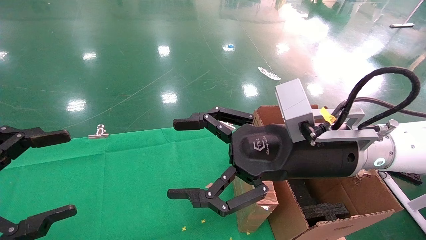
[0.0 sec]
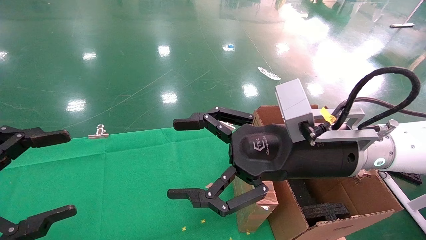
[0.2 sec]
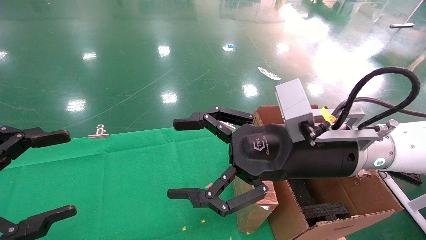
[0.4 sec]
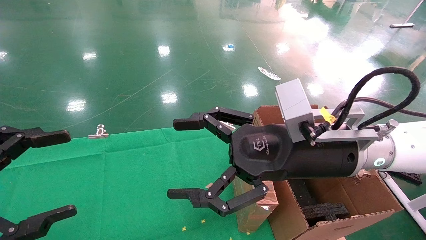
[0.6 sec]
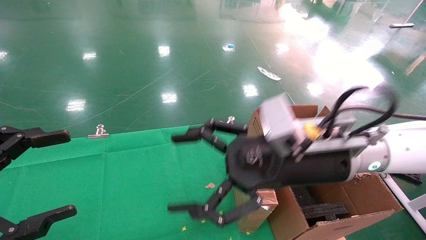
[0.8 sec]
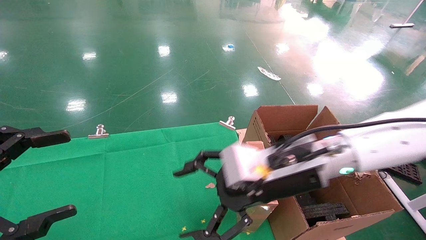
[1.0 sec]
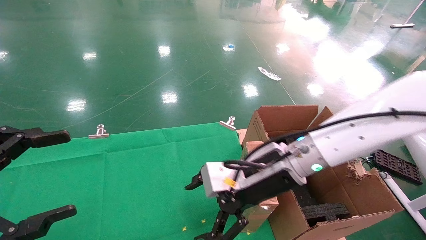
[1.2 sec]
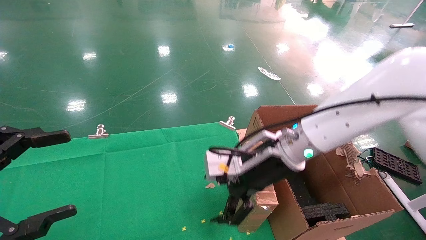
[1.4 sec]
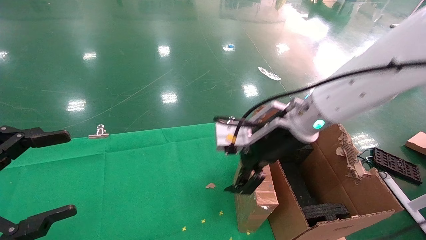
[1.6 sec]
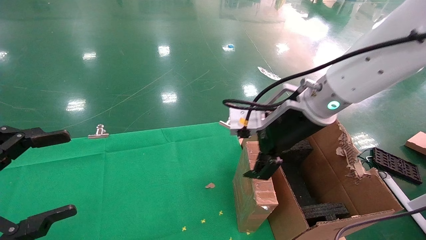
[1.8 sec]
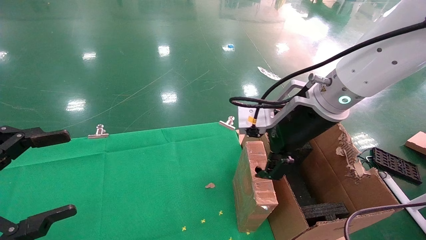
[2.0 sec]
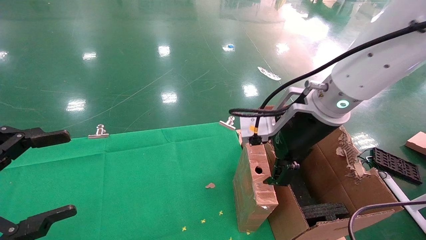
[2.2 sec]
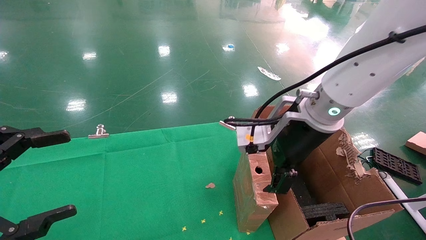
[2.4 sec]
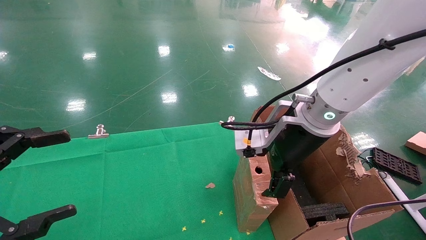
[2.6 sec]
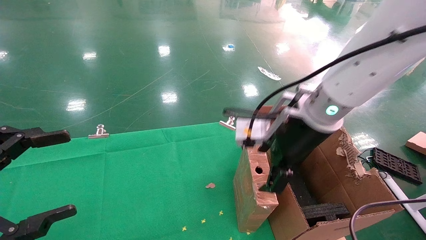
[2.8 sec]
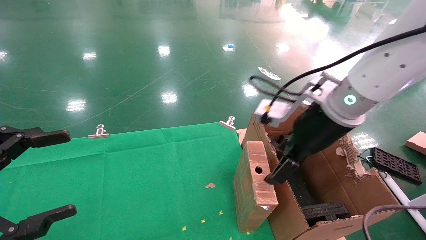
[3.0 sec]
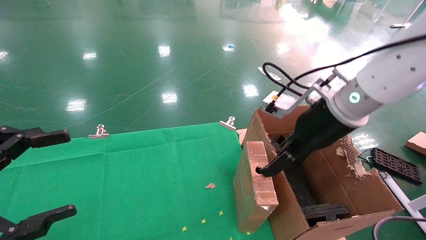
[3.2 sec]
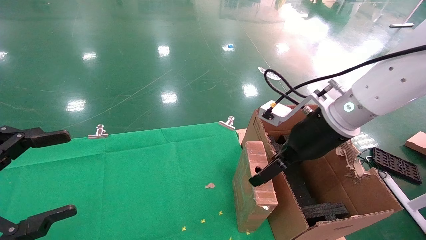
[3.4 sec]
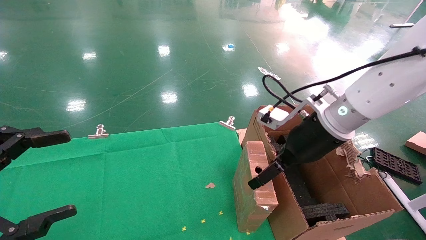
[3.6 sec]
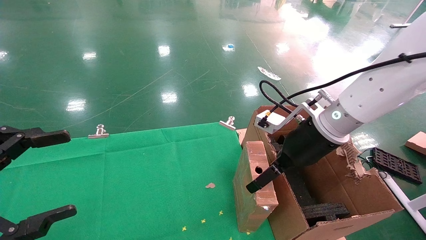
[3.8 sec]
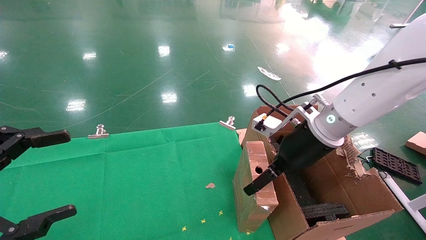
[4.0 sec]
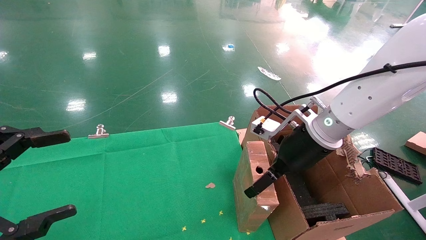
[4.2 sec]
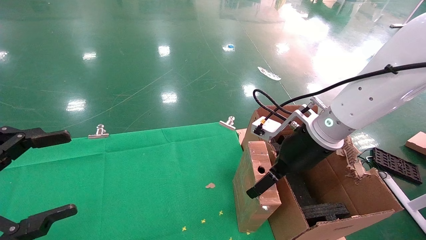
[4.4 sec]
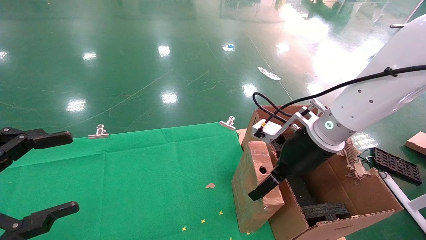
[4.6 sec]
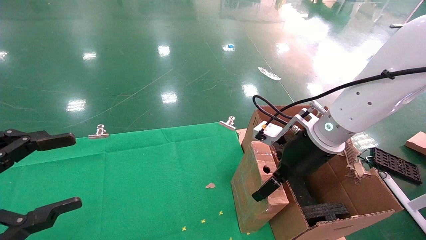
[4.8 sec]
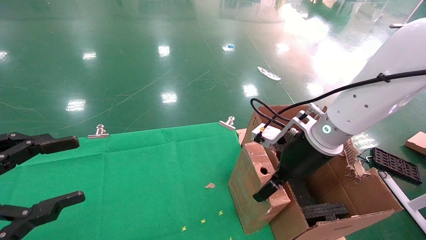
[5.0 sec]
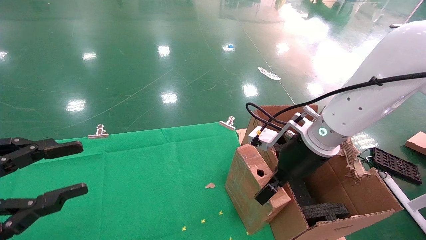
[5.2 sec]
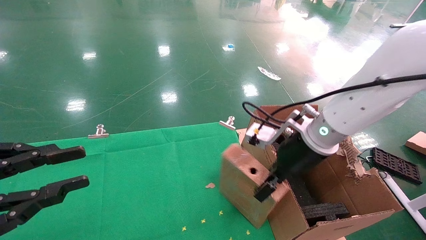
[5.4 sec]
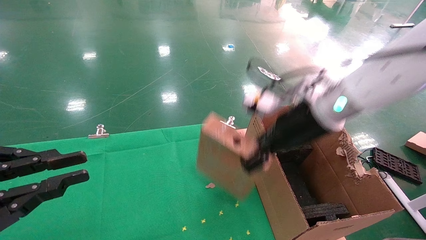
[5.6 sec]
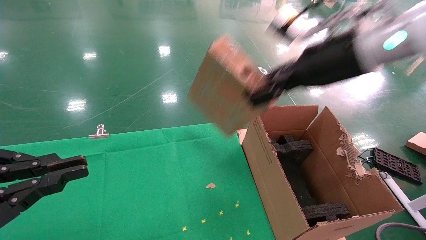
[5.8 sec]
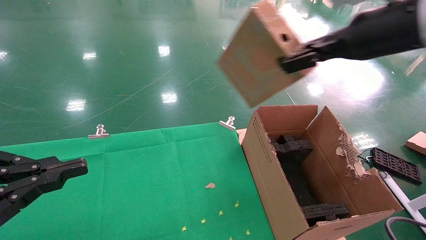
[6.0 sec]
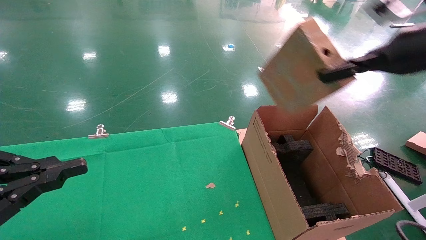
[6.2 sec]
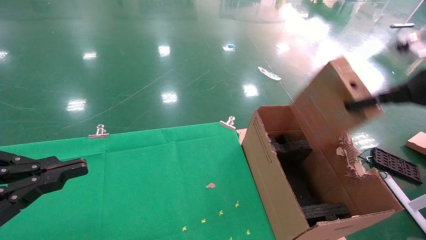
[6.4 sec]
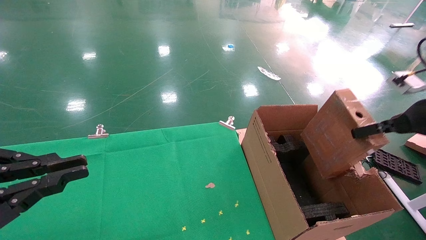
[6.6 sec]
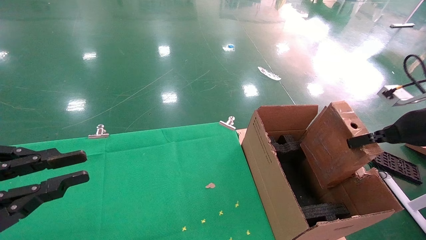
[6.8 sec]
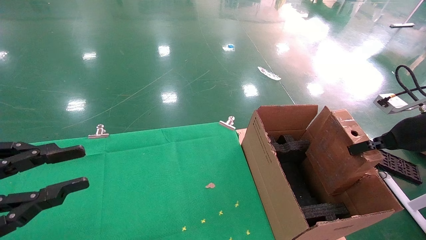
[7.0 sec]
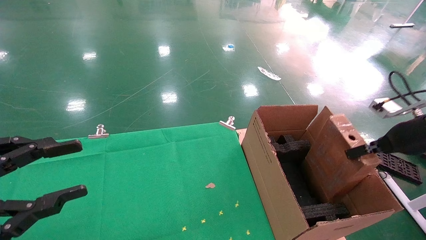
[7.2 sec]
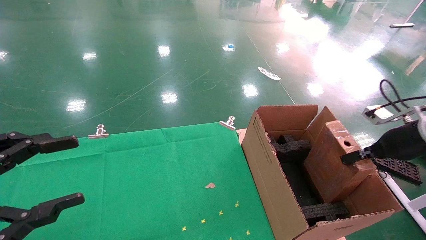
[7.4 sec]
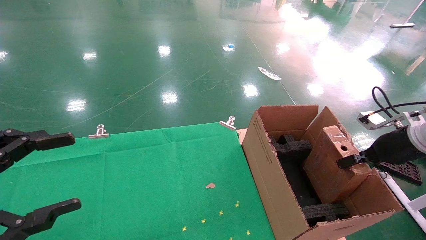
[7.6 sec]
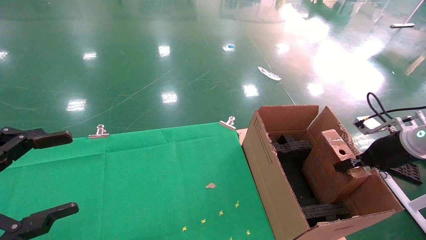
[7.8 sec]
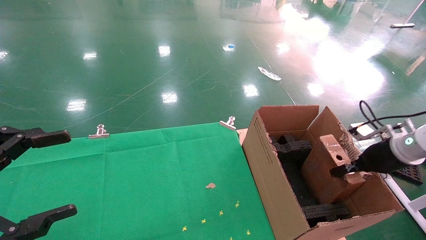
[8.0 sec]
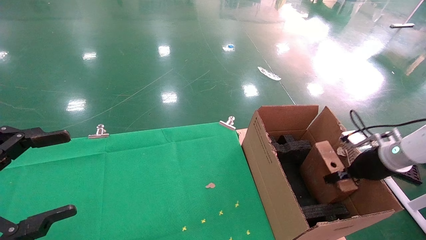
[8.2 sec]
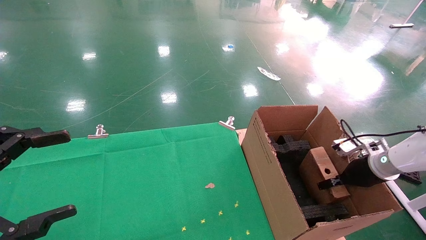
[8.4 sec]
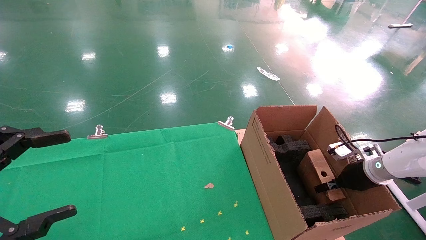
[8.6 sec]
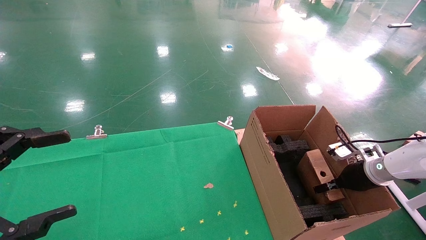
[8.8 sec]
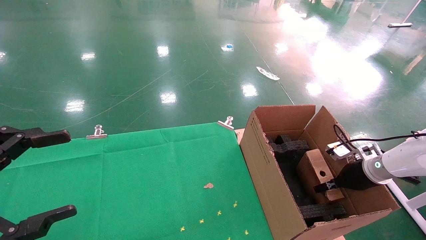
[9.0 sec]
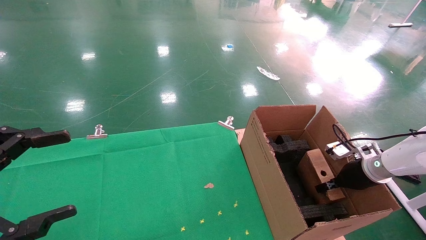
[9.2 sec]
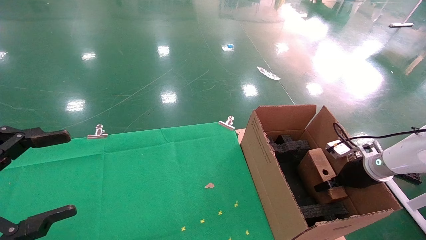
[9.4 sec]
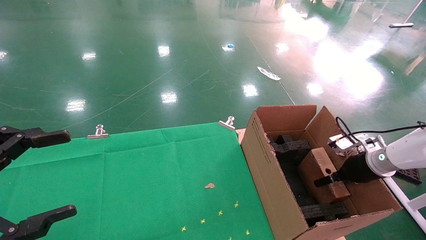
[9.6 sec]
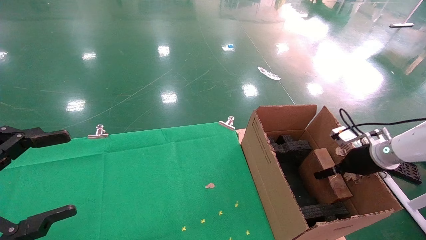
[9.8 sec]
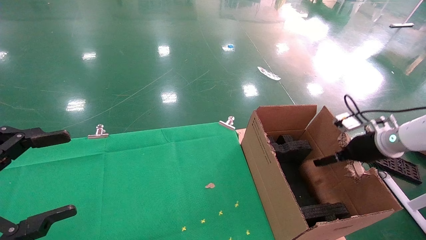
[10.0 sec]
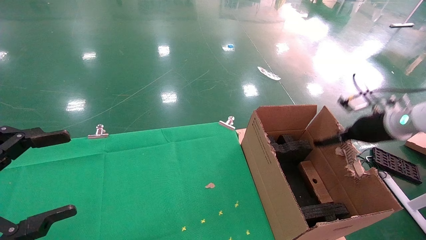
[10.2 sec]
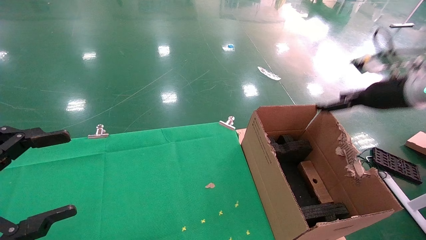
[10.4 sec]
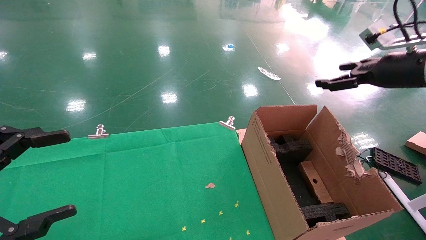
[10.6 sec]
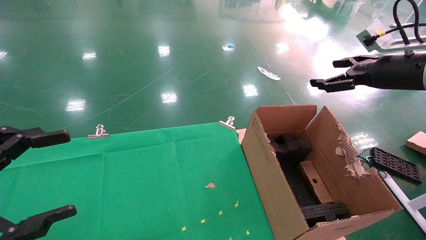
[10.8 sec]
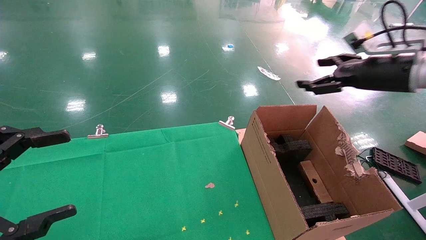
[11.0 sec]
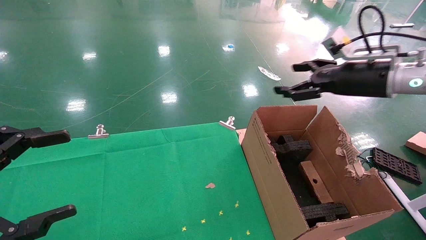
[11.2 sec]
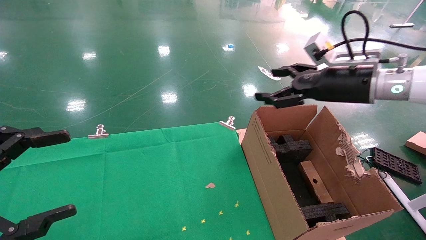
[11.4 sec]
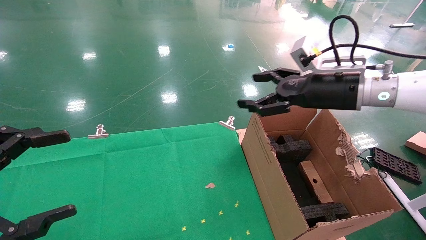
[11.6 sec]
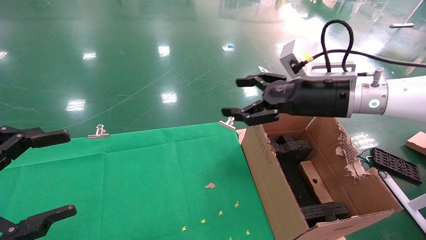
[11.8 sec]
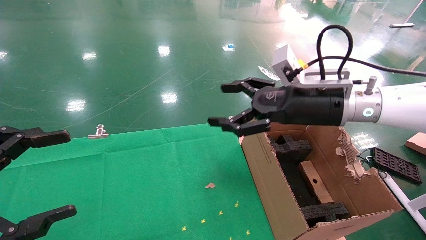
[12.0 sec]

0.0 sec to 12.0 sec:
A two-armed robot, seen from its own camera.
Task of the whole recording: using a robotic arm to pick up a cardboard box and palace it the carton.
Step, 1.0 sec to 5.4 sec: Pick up the mouse and the power cord paper box.
Step, 5.6 sec to 10.2 sec: Place the mouse and the power cord paper box into the container.
0.0 sec to 1.6 sec: The right gripper shifts approximately 10 cm forward.
1.6 sec to 3.0 sec: The right gripper changes place by approximately 5 cm.
3.0 sec to 4.4 sec: The right gripper goes about 5 cm downward.
4.4 sec to 6.0 sec: The right gripper is displaced upward and to the right by approximately 20 cm, and closes its fingers. The left gripper closes its fingers.
6.0 sec to 7.6 sec: The left gripper opens, while the right gripper shifts roughly 25 cm downward and to the right.
7.6 sec to 9.0 sec: The right gripper is displaced downward and forward by some 15 cm.
9.0 sec to 10.4 sec: The right gripper is displaced upward by some 20 cm, and opens up.
10.4 sec to 12.0 sec: The right gripper shifts some 20 cm to the left.

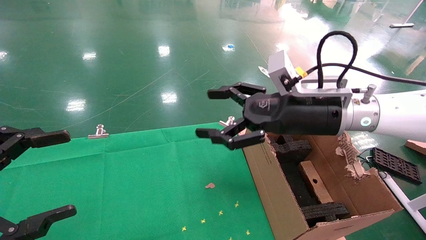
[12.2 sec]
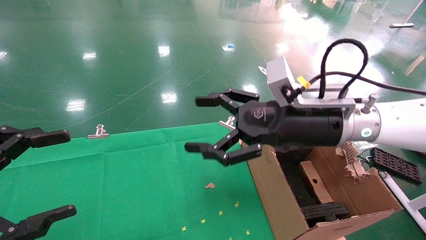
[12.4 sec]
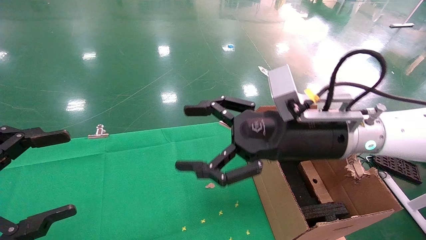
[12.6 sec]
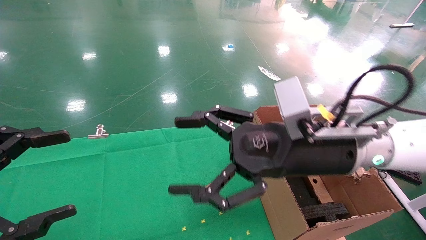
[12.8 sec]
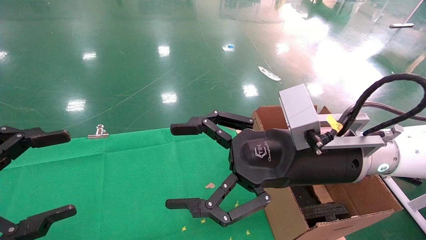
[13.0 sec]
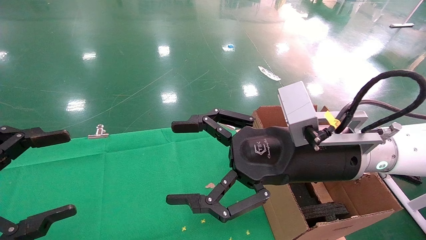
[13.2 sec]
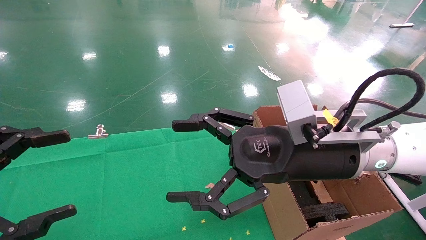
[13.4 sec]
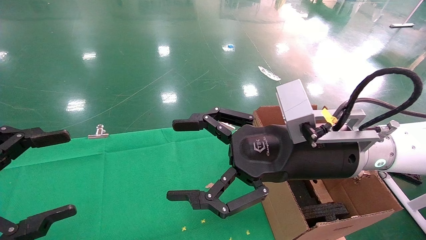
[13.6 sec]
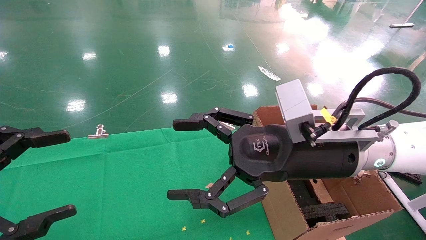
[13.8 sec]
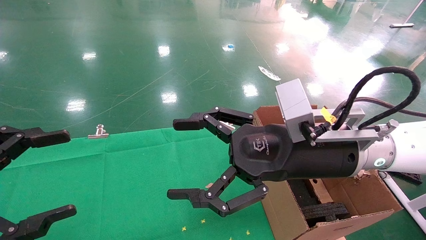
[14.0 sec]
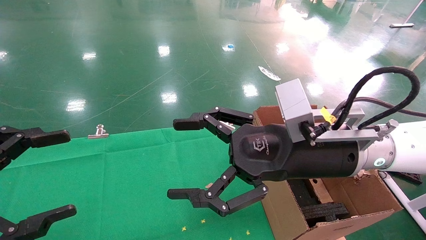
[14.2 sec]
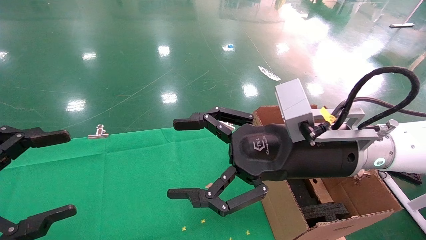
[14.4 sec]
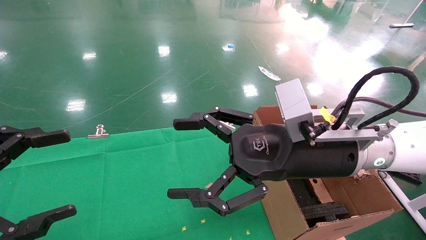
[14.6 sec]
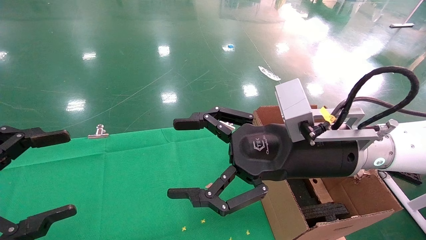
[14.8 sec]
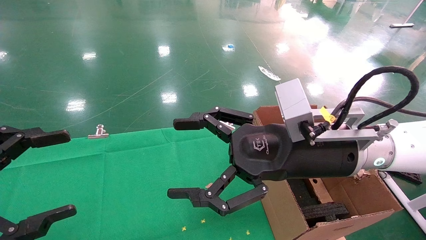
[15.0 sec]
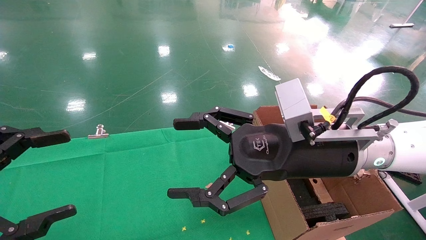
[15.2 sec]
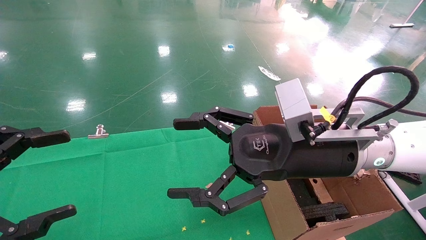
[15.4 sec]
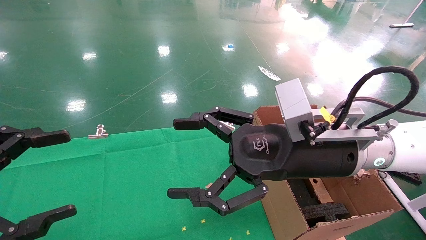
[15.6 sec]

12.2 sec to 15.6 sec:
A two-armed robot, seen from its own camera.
Task of the whole recording: using a robotic arm to pick up a cardboard box and palace it the carton.
12.2 sec to 13.8 sec: The right gripper heads backward, covering roughly 5 cm.
13.8 sec to 15.6 sec: Both grippers stay put.
